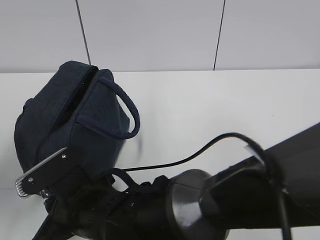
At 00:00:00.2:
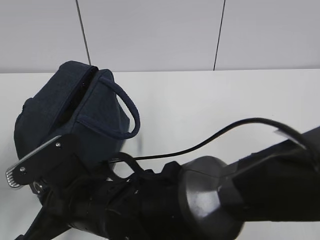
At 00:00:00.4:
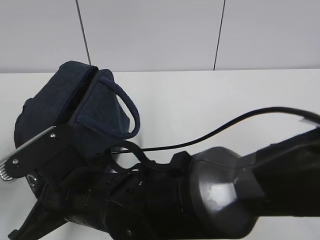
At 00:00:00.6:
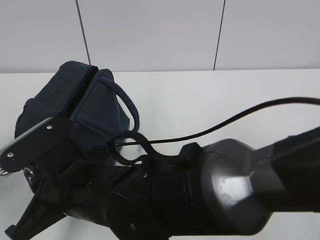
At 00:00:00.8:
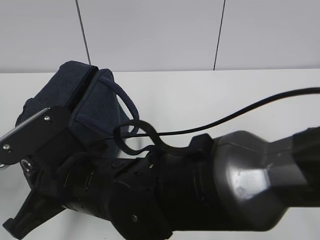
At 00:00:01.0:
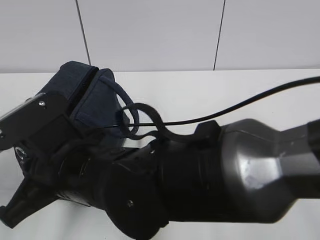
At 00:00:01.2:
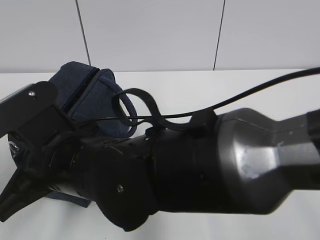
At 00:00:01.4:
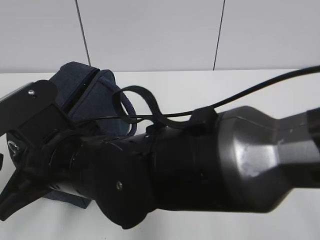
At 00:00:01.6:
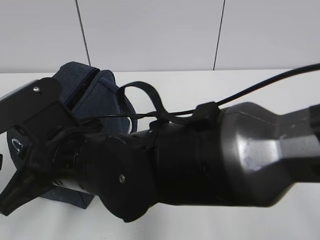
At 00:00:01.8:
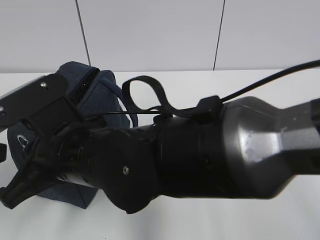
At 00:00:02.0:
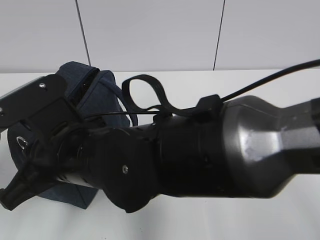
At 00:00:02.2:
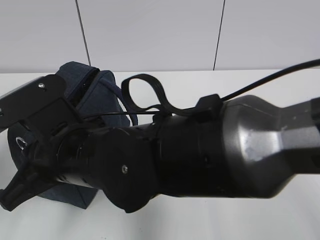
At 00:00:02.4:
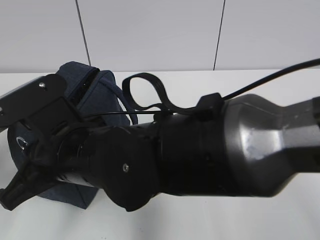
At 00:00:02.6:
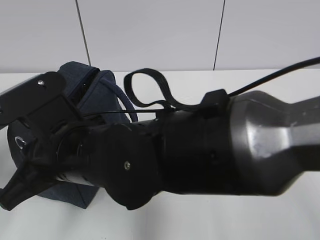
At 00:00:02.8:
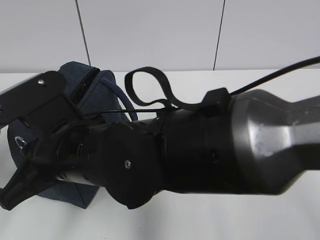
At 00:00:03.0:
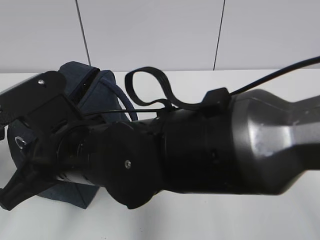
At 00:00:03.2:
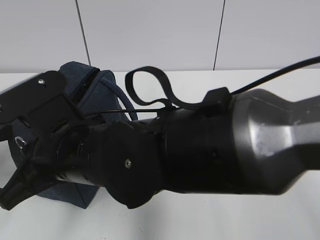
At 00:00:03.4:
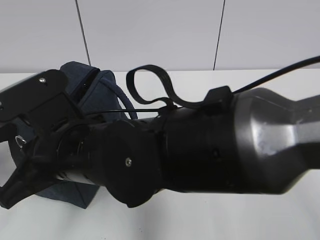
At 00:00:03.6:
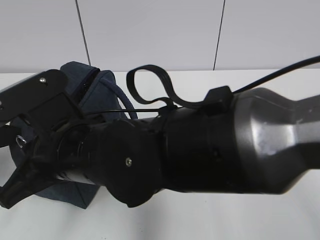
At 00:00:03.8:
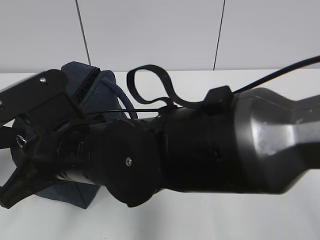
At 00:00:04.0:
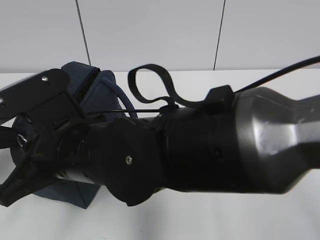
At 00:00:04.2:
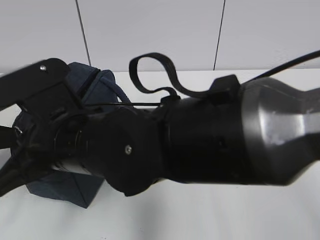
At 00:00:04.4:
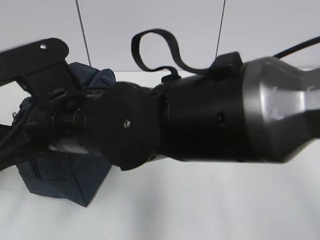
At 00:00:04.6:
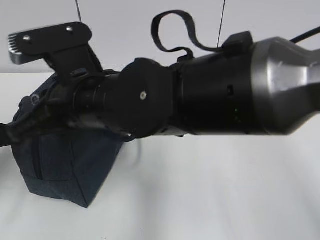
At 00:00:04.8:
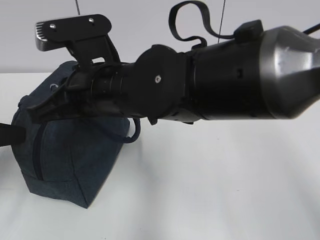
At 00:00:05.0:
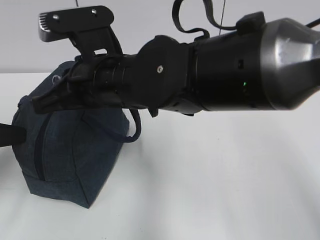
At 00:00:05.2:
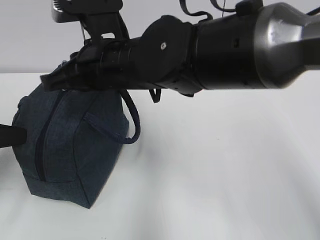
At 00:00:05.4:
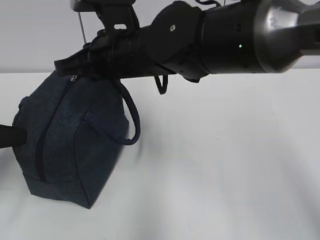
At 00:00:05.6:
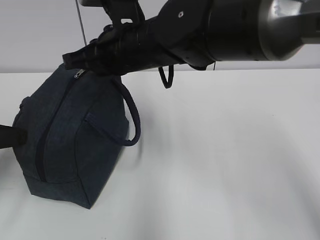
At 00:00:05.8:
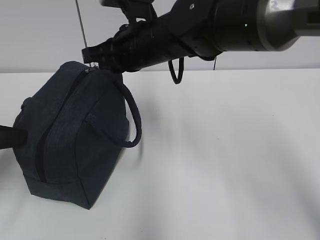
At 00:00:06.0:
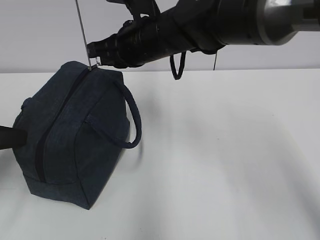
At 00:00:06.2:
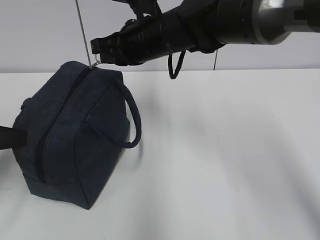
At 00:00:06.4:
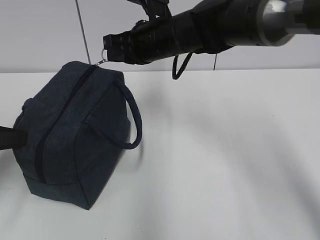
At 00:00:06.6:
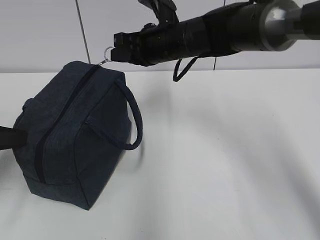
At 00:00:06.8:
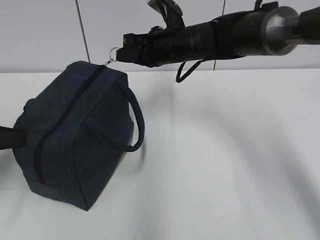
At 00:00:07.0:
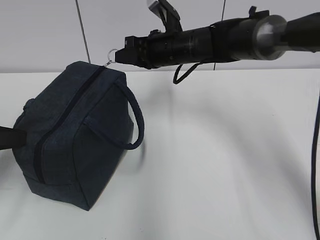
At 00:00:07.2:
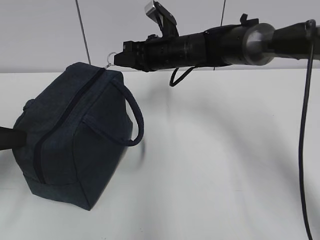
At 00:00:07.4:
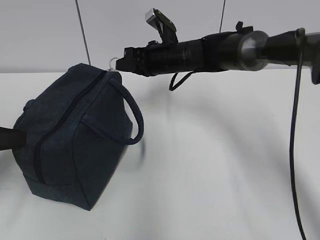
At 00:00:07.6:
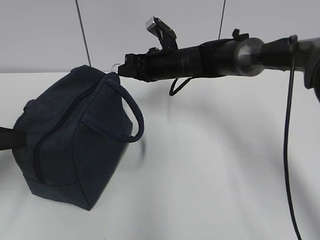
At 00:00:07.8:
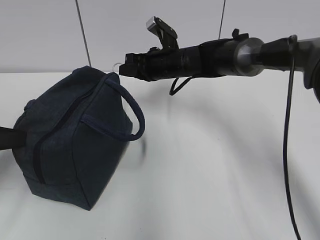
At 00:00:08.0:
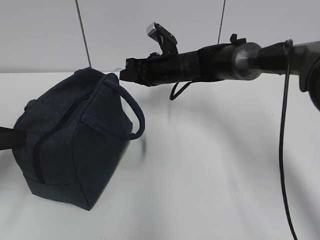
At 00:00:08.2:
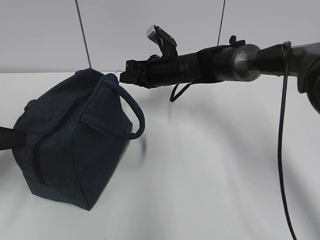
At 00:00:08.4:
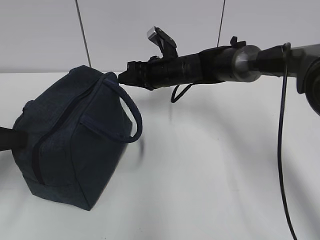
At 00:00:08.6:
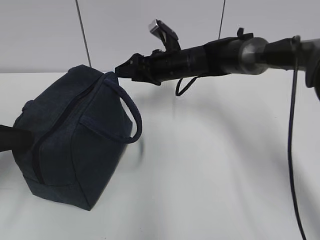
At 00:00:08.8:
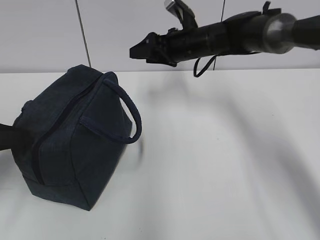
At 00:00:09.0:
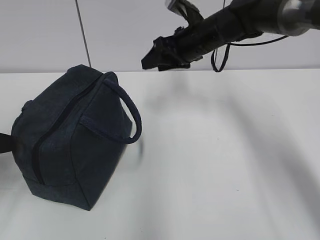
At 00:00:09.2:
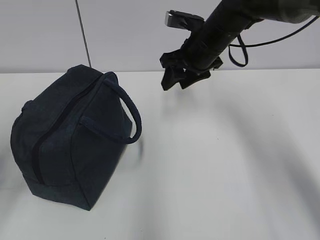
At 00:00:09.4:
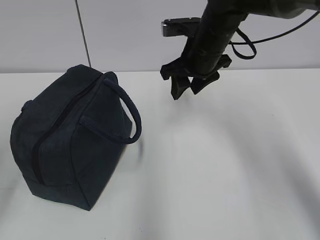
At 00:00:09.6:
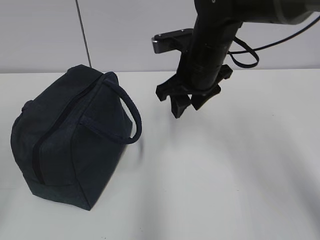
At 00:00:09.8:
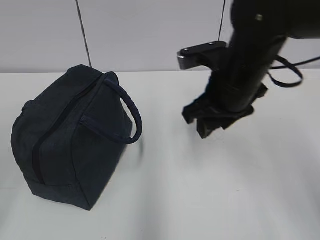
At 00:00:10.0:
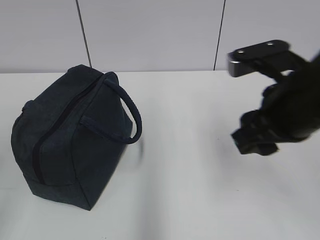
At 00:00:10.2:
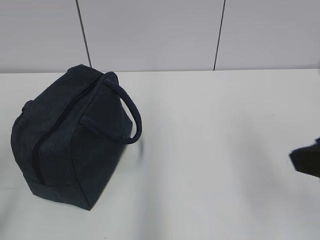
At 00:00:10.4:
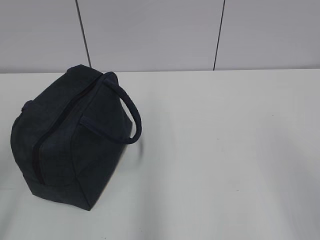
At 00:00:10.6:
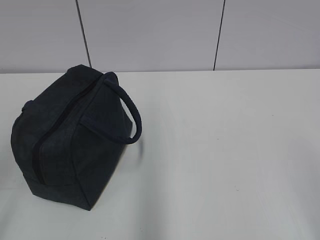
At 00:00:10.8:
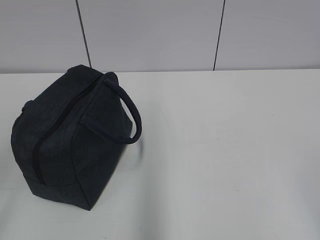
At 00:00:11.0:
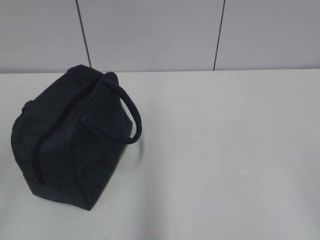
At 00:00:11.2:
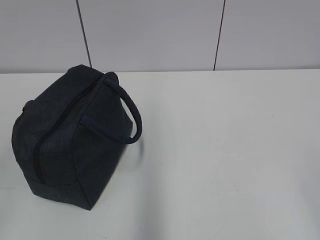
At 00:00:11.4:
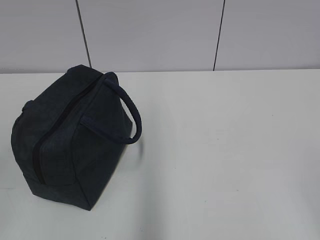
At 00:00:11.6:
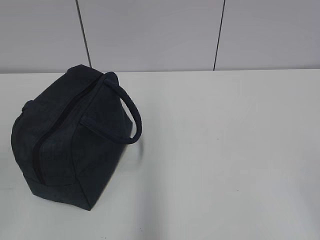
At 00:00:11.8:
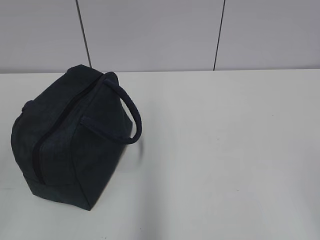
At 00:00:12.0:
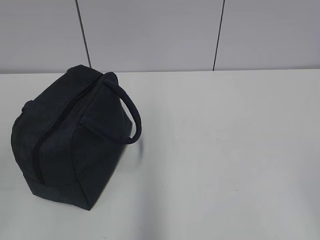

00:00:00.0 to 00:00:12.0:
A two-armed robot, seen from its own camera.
00:00:00.0 to 00:00:01.6: The right gripper is displaced upward by roughly 10 cm.
00:00:01.6 to 00:00:03.0: The left gripper goes roughly 5 cm forward.
00:00:03.0 to 00:00:04.4: The left gripper closes its fingers.
00:00:04.4 to 00:00:06.0: The right gripper heads forward and to the right, covering about 15 cm.
00:00:06.0 to 00:00:07.6: The right gripper shifts approximately 15 cm forward and downward.
00:00:07.6 to 00:00:09.0: The right gripper heads upward and to the right, covering some 10 cm, and opens. Meanwhile the left gripper opens its fingers.
00:00:09.0 to 00:00:10.4: The left gripper shifts some 15 cm backward and upward; the right gripper travels backward by some 40 cm.

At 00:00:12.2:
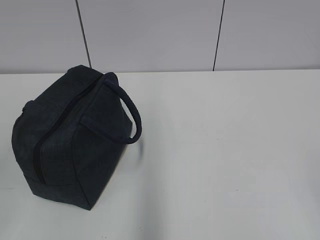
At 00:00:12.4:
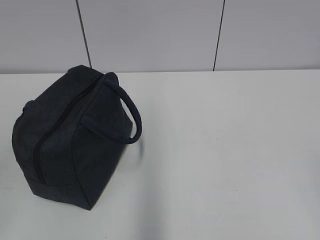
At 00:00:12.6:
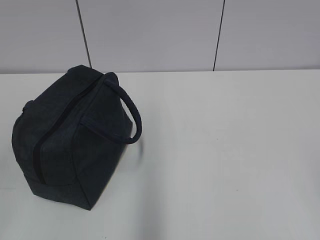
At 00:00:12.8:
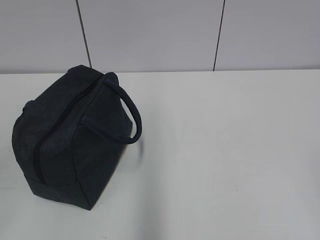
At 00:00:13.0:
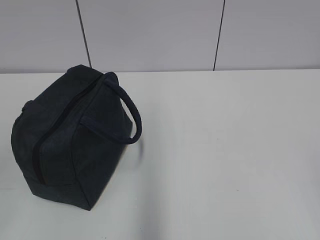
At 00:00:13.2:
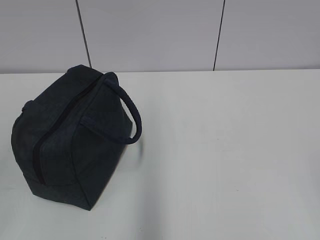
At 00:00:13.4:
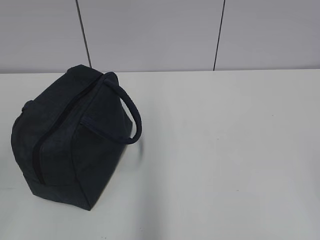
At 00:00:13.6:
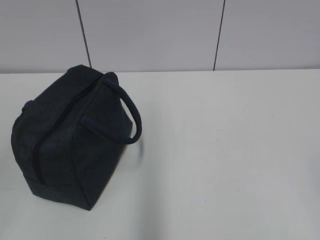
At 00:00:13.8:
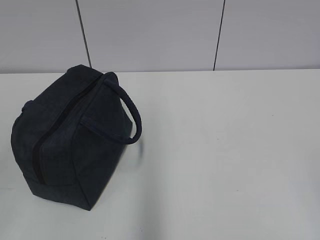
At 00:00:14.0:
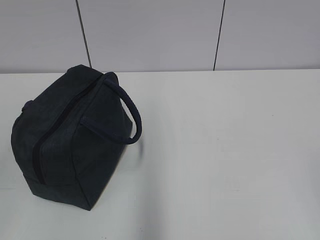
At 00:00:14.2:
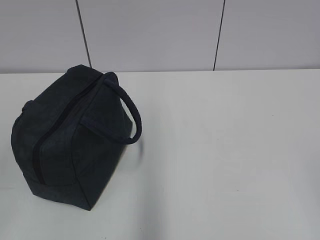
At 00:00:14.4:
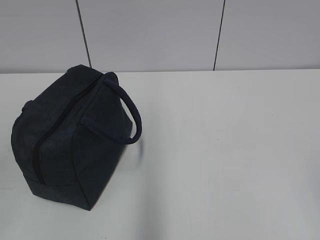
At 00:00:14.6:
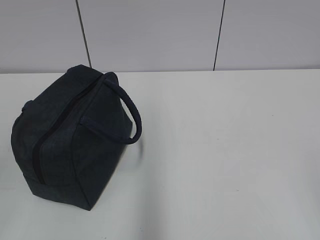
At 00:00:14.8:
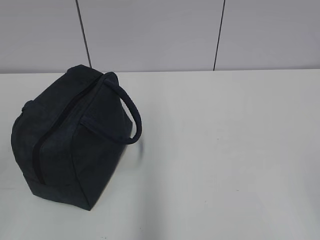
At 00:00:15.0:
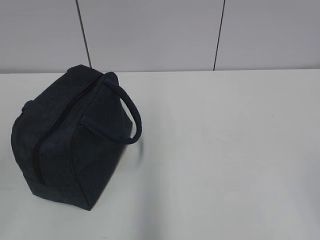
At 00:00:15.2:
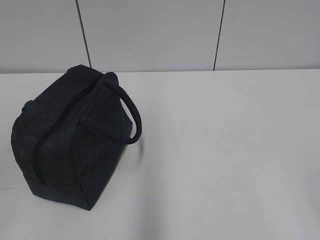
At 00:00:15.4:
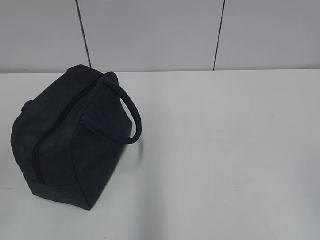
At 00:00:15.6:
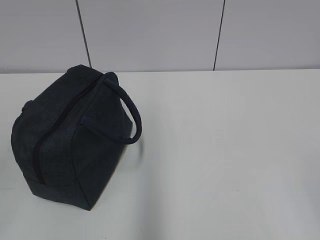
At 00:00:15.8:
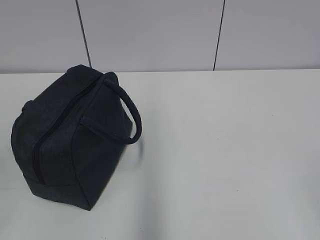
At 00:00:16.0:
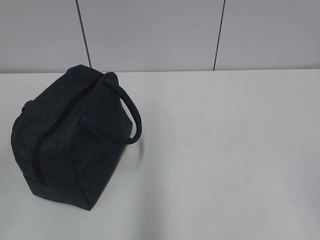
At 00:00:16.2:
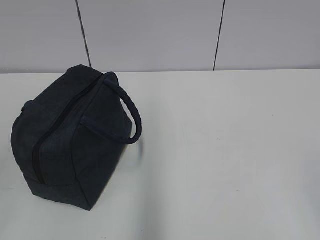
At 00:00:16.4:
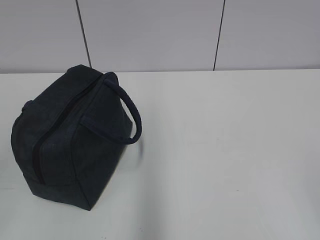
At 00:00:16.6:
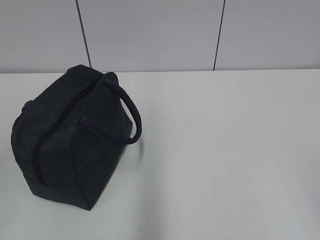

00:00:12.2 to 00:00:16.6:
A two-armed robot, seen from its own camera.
00:00:15.2 to 00:00:16.6: Neither gripper changes place.
